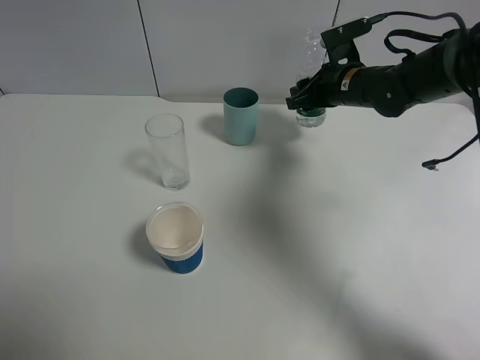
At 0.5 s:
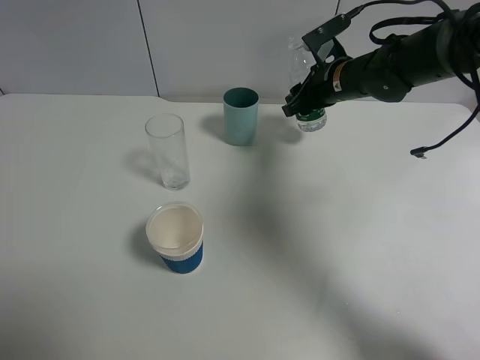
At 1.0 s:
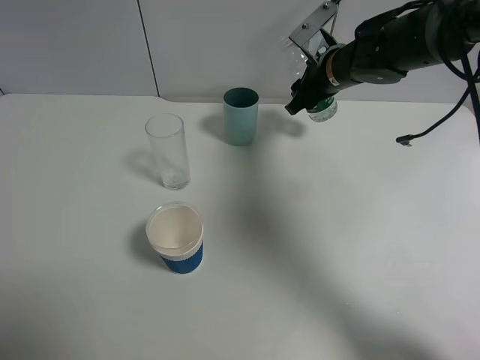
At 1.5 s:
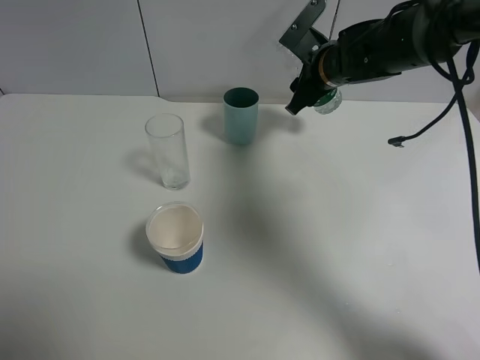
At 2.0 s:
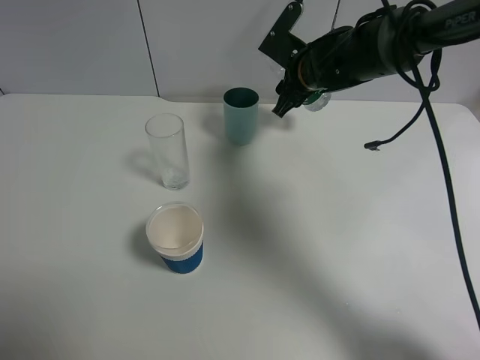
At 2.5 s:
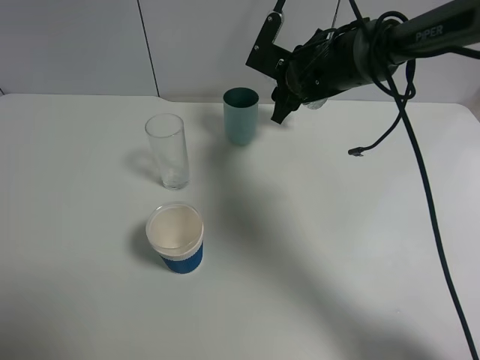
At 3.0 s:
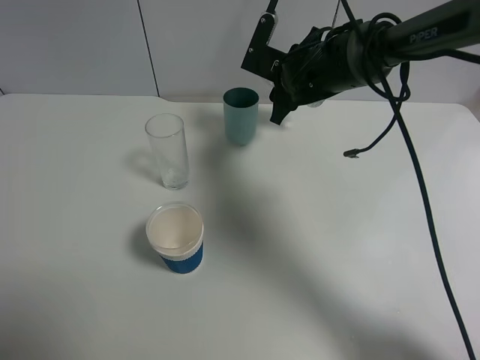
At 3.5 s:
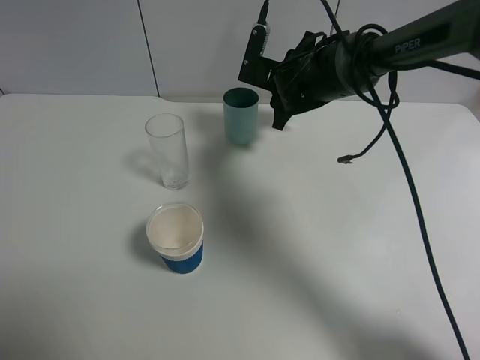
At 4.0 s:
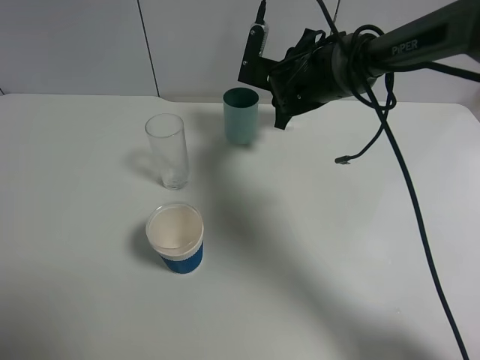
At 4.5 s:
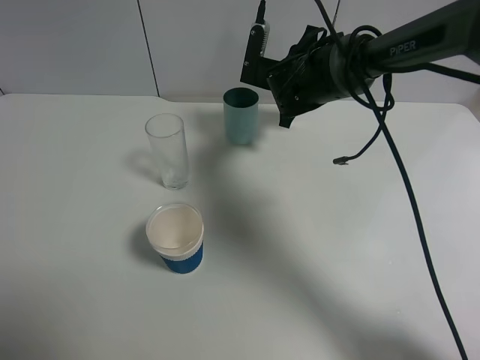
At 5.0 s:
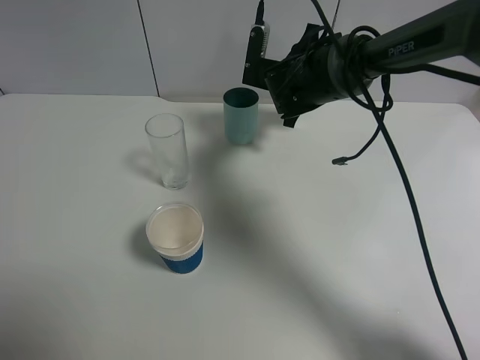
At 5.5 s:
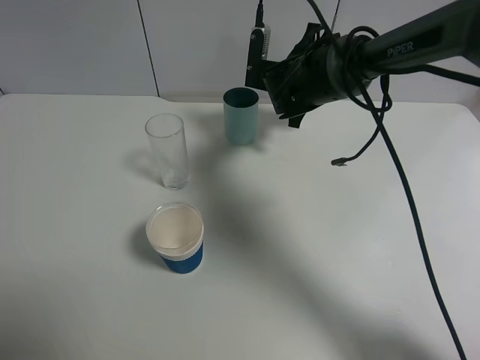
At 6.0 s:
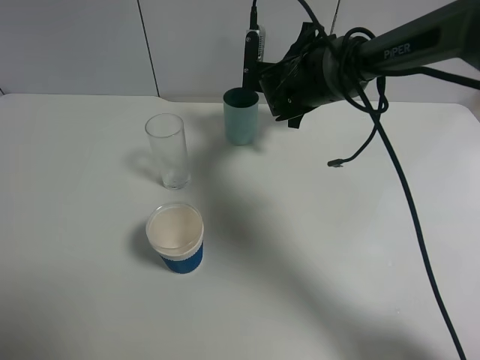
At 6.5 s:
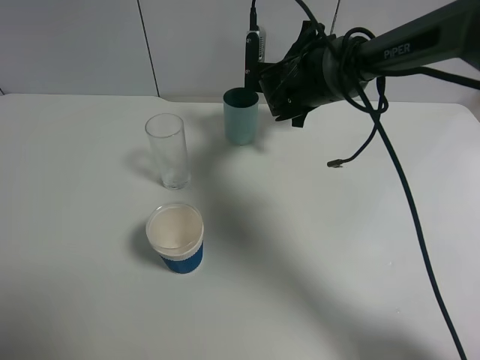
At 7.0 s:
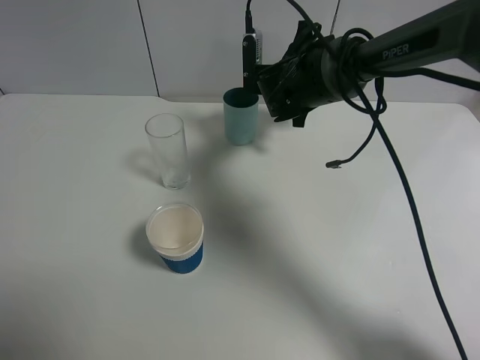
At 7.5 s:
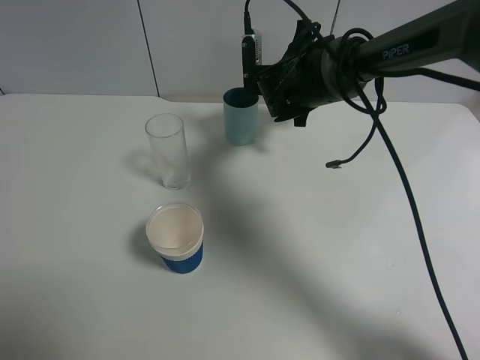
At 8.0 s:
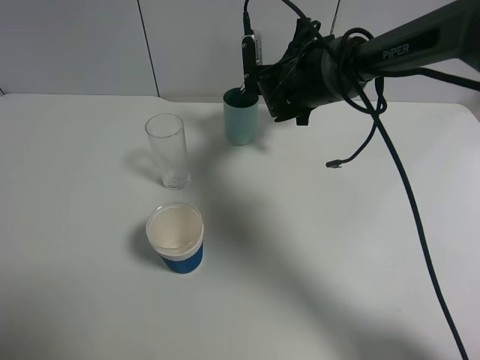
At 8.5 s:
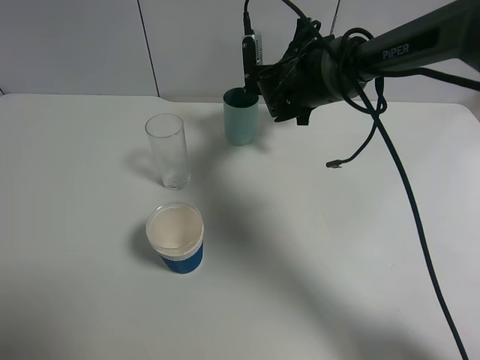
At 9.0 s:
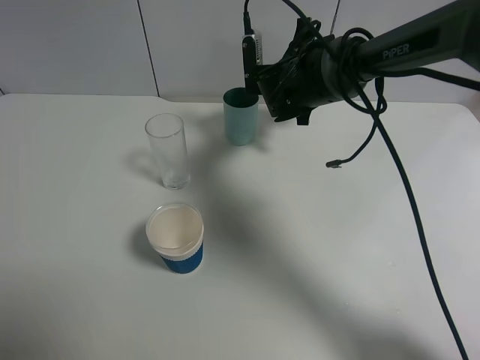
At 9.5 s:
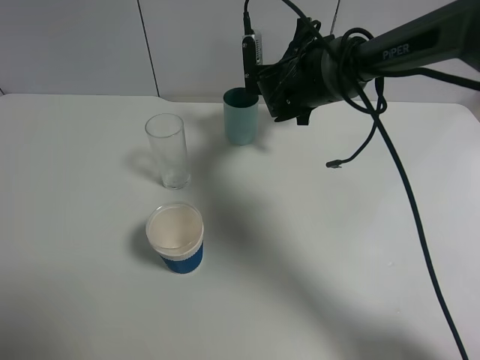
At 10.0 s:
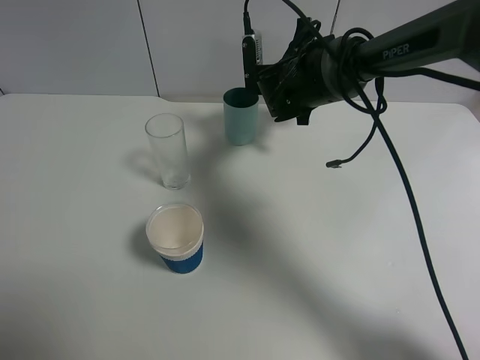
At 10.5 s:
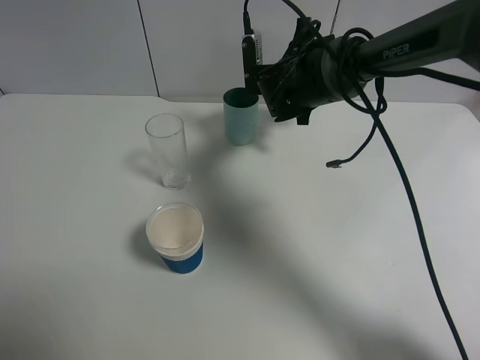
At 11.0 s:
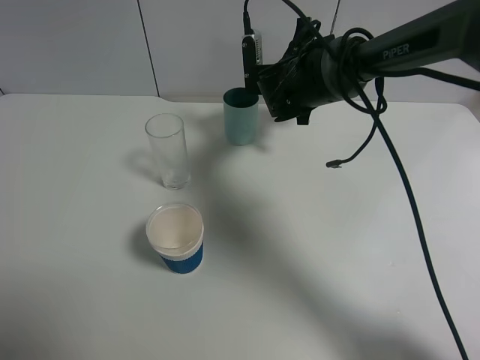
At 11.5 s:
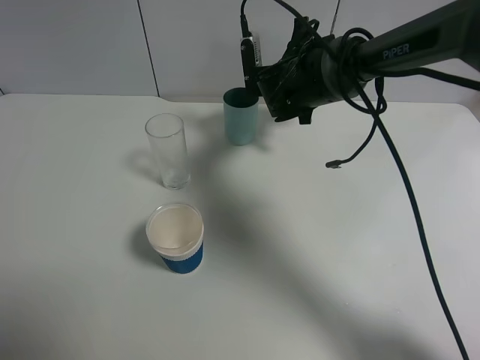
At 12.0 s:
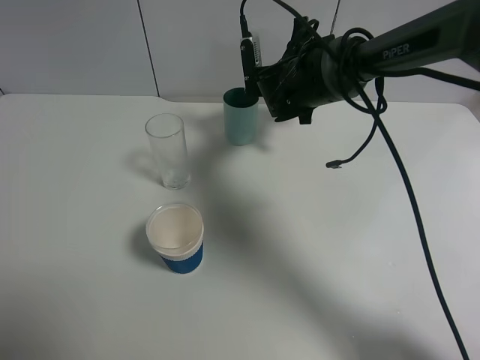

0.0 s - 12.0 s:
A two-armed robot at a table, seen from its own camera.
Task of the whole recording: use a gripper to hold the bottle of the drink and pour it into a random cup.
0.0 s - 2.0 s: The right gripper heads to the left, covering approximately 5 cm.
4.0 s - 6.0 s: The grippers move only a little.
6.0 s - 8.0 s: The grippers make only small movements.
8.0 s - 12.0 s: Both grippers stay about where they are.

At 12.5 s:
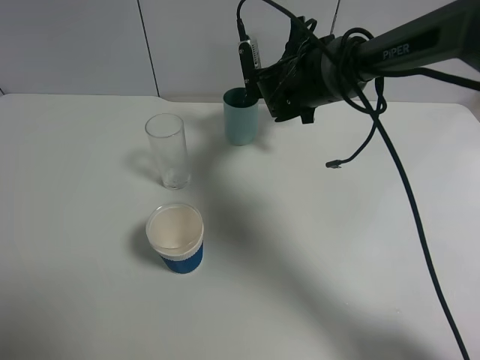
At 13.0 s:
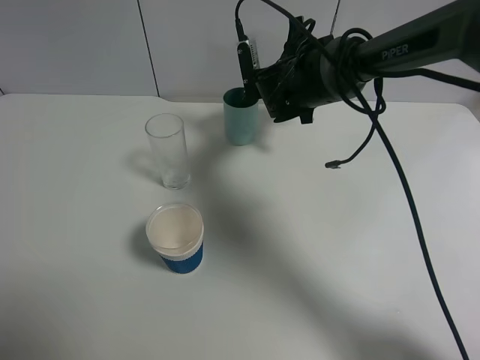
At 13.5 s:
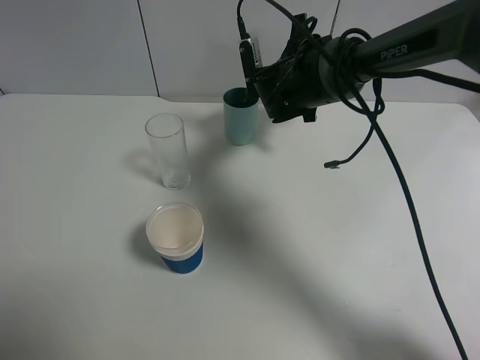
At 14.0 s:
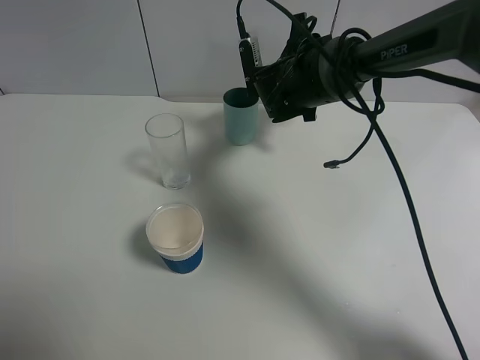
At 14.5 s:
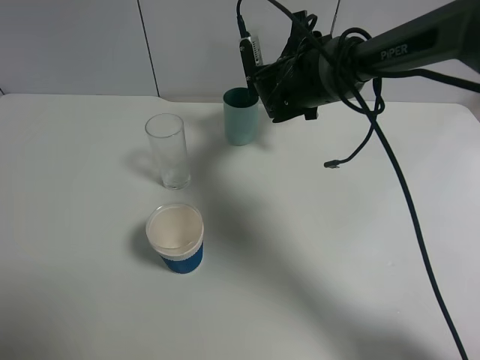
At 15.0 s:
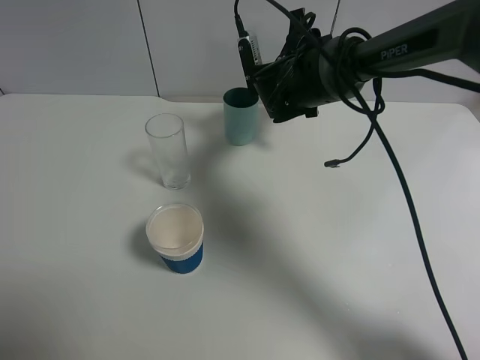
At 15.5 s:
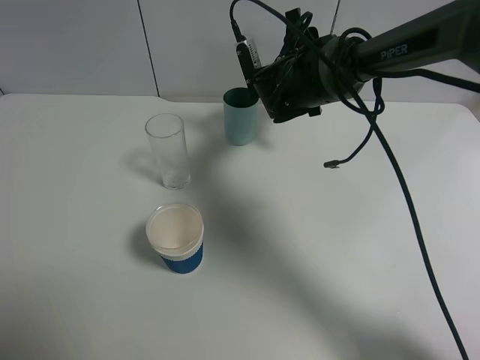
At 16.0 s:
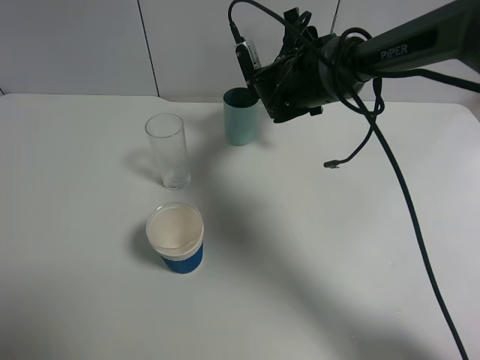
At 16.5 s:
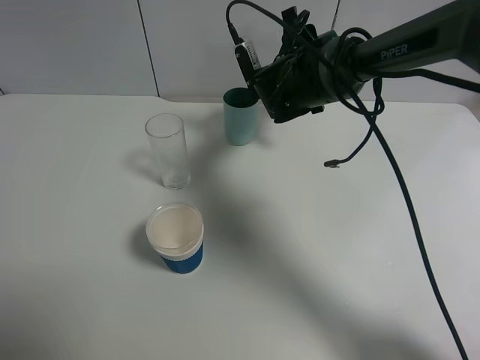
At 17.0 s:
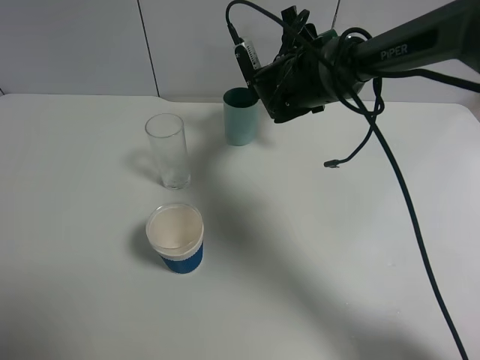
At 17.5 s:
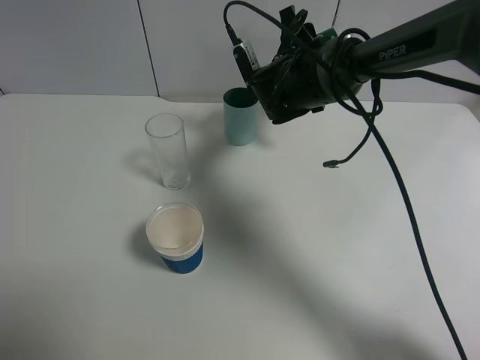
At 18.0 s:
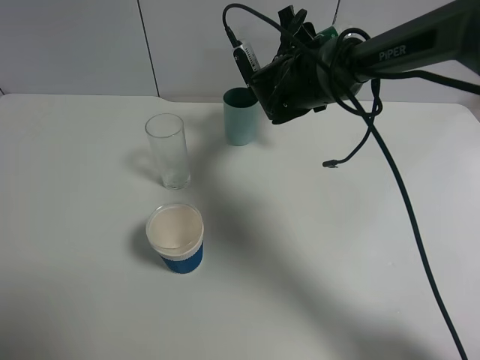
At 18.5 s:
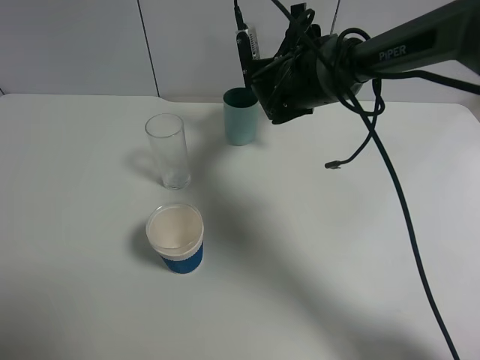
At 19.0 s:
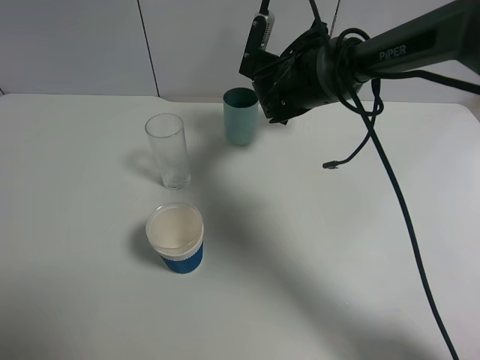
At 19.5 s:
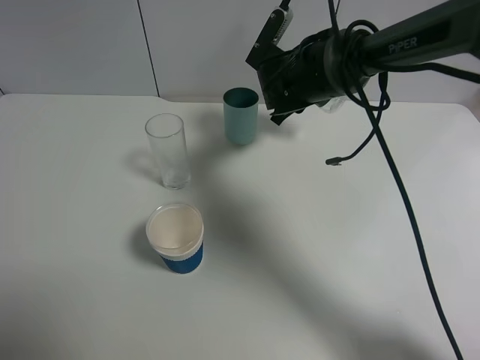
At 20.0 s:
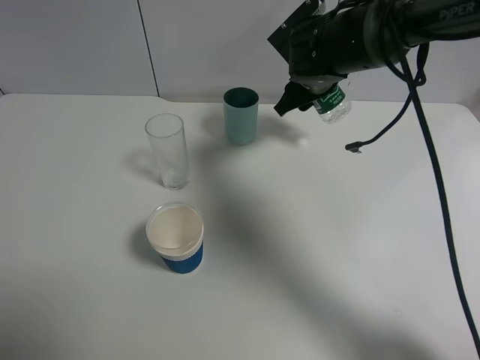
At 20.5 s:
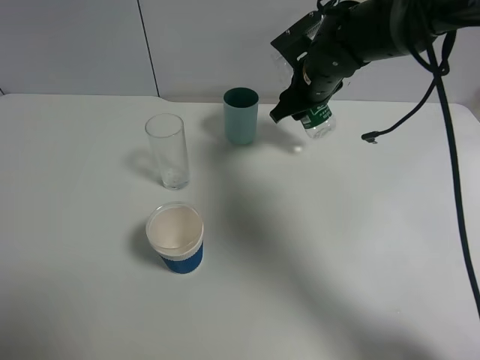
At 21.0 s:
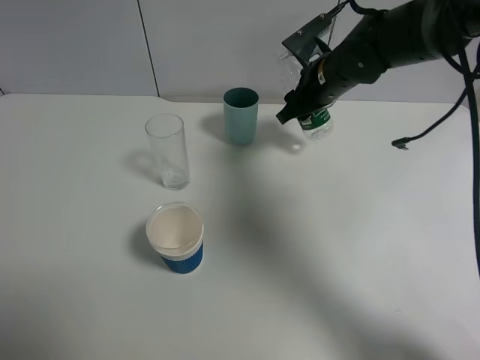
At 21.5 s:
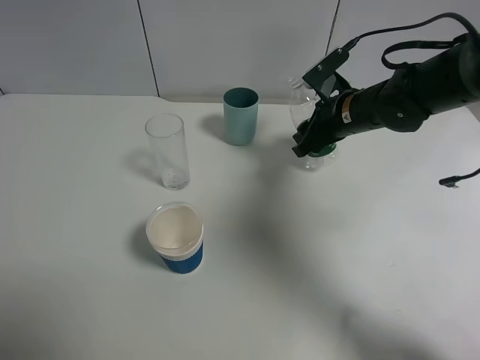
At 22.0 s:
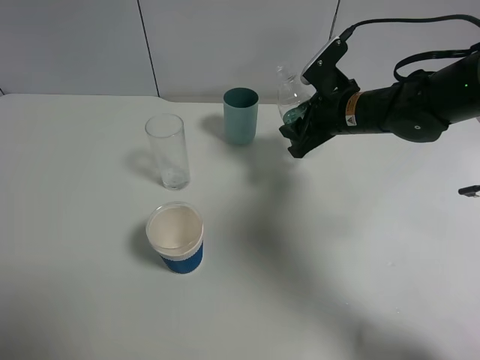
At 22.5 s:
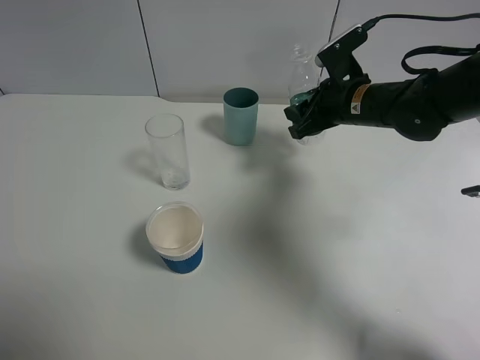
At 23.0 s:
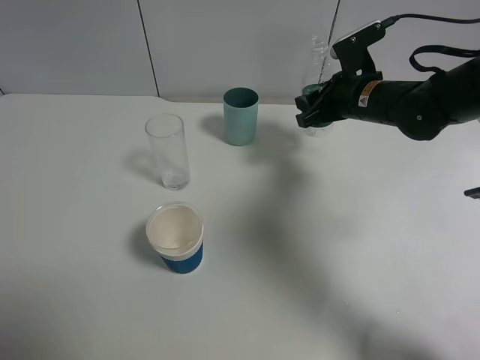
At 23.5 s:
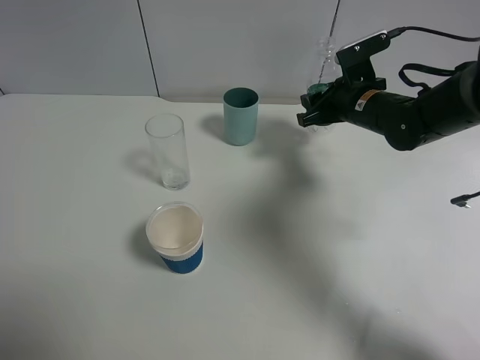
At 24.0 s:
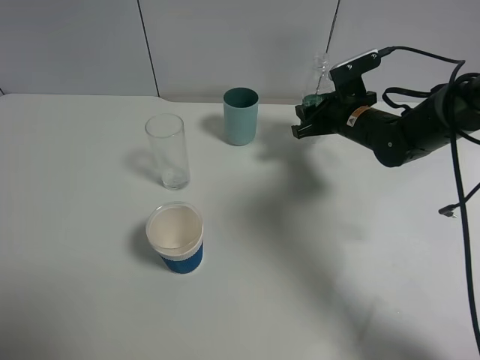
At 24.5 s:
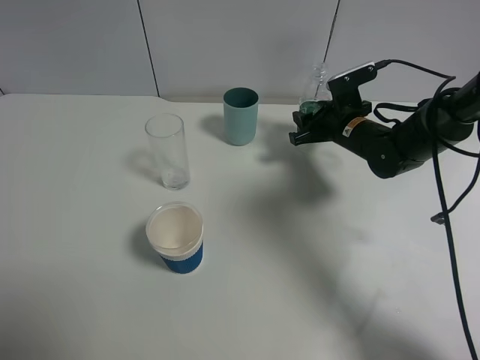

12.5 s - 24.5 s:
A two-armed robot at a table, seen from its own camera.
Task of the whole recording: use a gripper to hold the bottle of the drink and pour it into a random cup.
Step, 12.5 s - 19.5 s: Pour the mineral water into the cyan cup with the right gripper.
12.5 s - 14.5 s: The two grippers keep their place.
14.5 s - 18.5 s: The grippers move only a little.
20.5 s - 22.5 s: The right gripper shifts roughly 5 cm to the right.
22.5 s - 24.5 s: The right gripper is displaced downward by approximately 5 cm.

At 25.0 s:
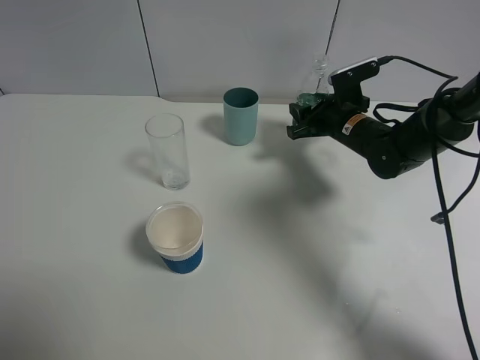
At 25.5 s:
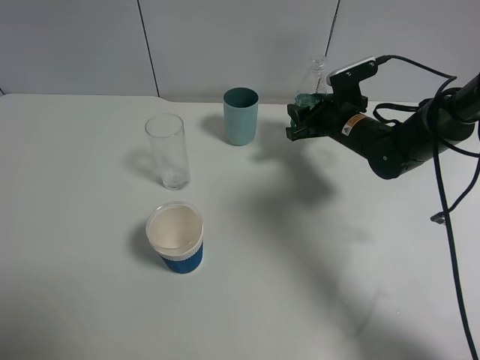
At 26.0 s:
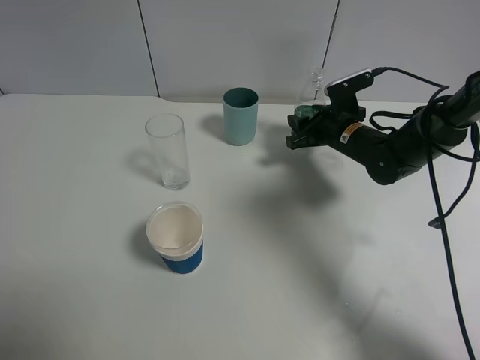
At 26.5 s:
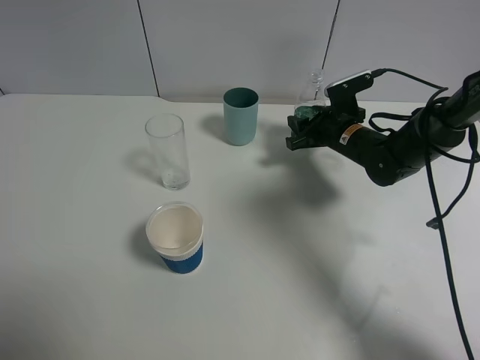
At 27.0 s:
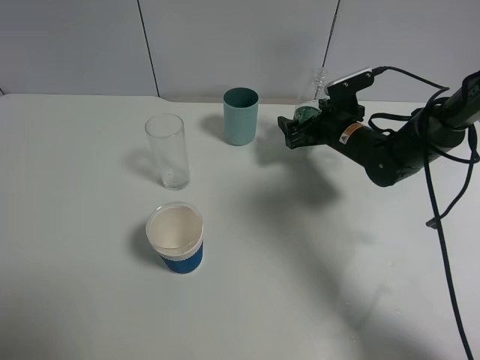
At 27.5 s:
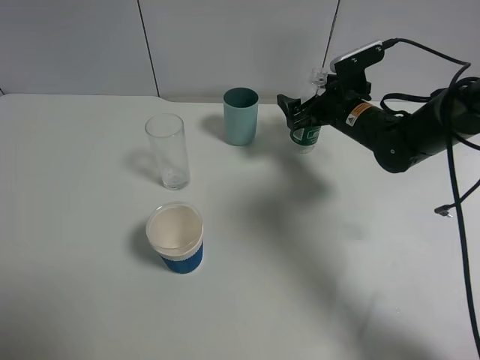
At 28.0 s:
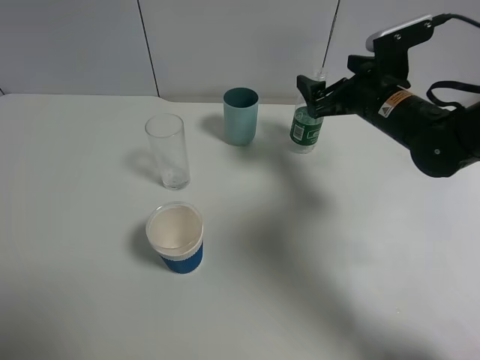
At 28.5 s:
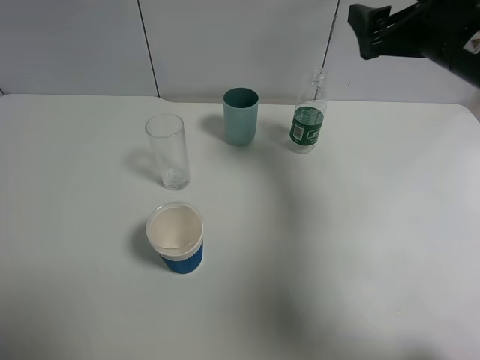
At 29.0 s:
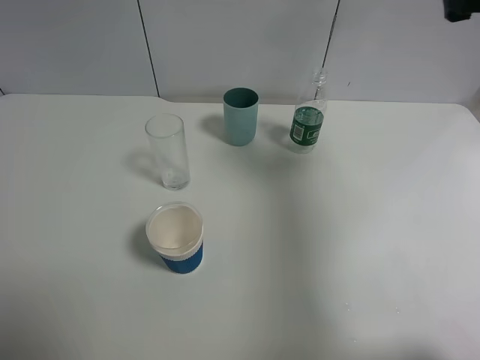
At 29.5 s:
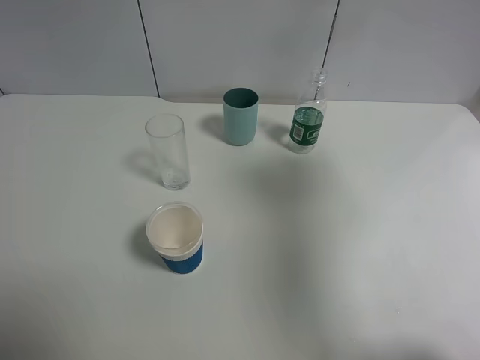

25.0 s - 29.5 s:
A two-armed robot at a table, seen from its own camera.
Task of the whole recording: use a gripper to hold the bottle of the drink and pour it into a random cup.
Step, 25.0 s - 27.5 s: Place the mineral water bottle on the table with the right gripper.
25.0 s - 27.0 s: The right gripper opens its fingers.
27.0 s - 29.5 s: The right gripper heads upward and backward, covering about 35 cm.
